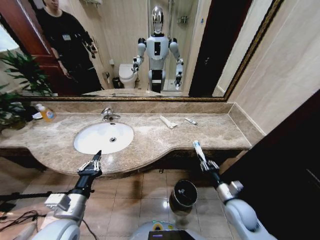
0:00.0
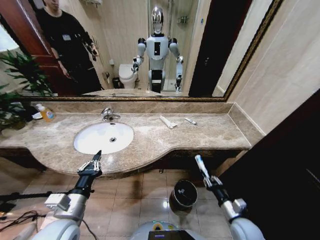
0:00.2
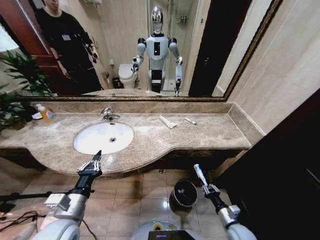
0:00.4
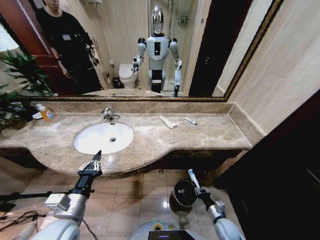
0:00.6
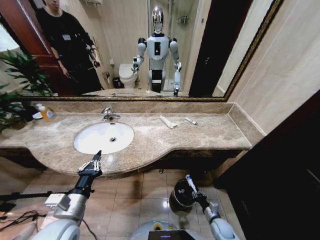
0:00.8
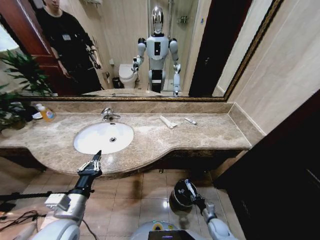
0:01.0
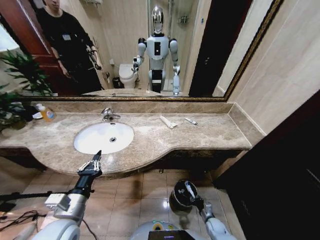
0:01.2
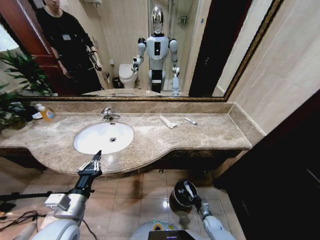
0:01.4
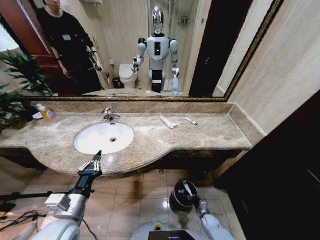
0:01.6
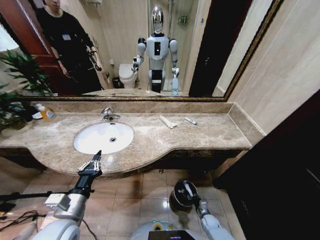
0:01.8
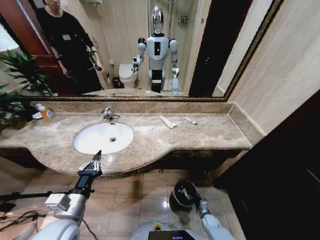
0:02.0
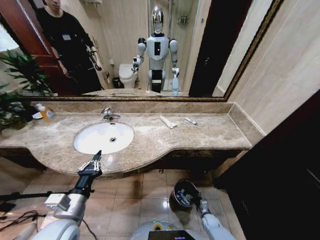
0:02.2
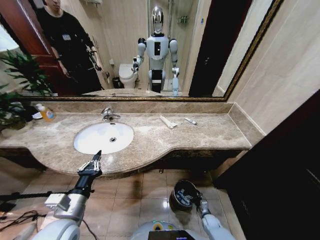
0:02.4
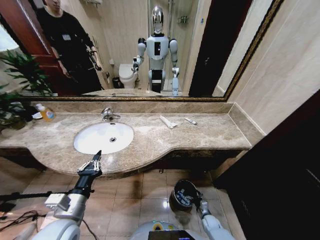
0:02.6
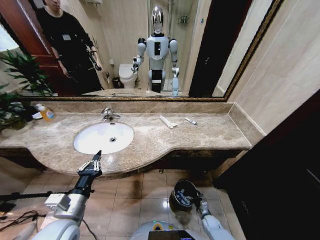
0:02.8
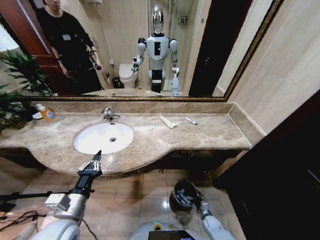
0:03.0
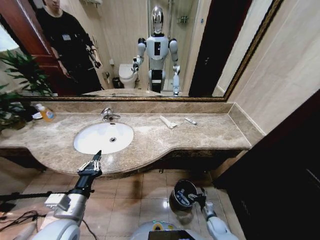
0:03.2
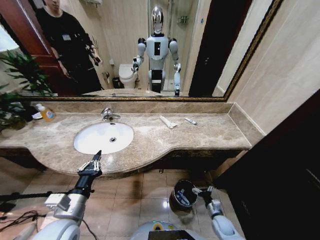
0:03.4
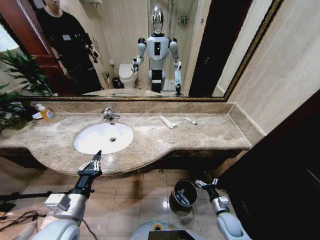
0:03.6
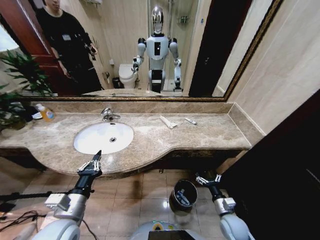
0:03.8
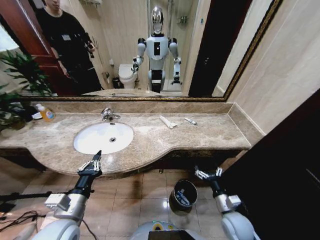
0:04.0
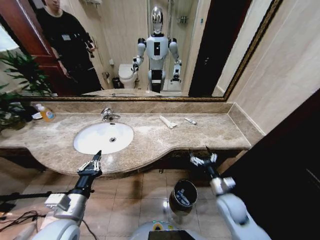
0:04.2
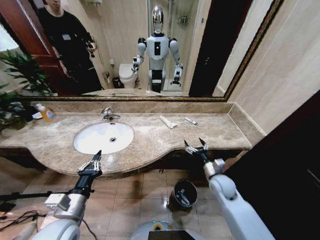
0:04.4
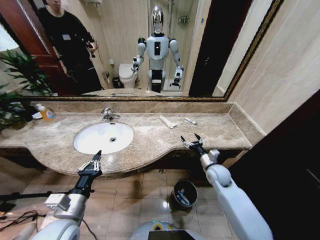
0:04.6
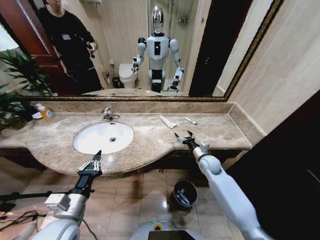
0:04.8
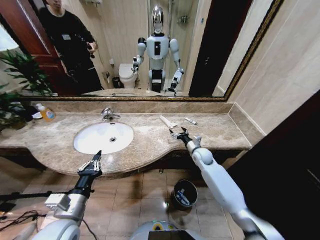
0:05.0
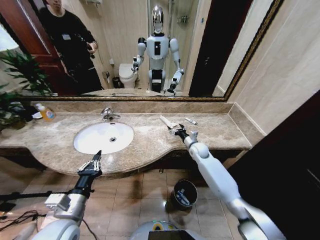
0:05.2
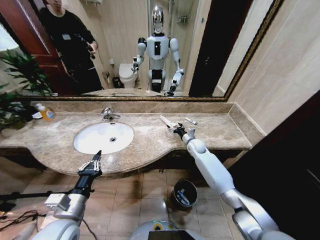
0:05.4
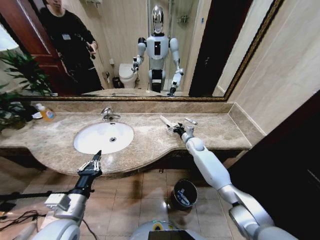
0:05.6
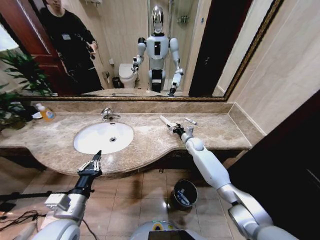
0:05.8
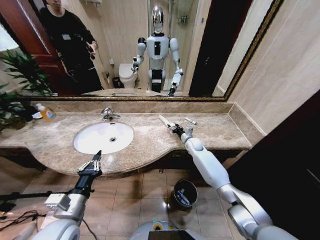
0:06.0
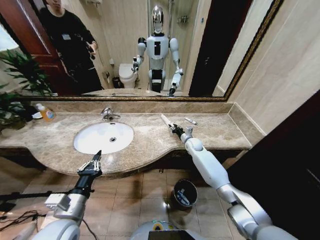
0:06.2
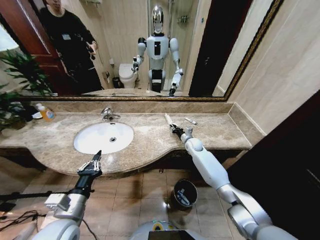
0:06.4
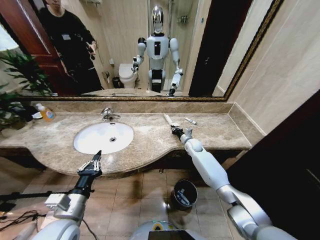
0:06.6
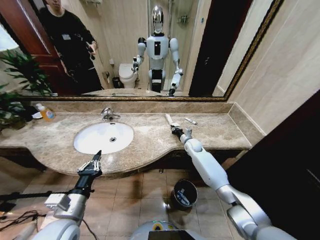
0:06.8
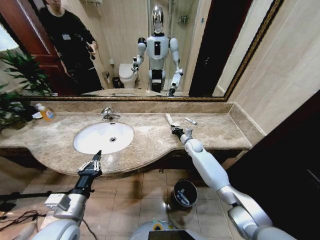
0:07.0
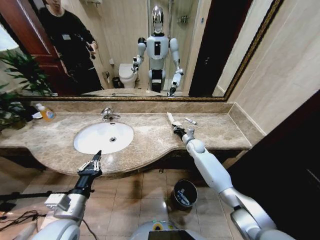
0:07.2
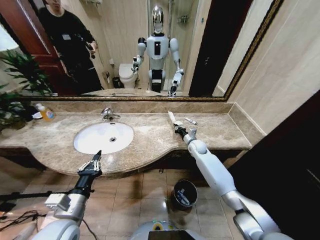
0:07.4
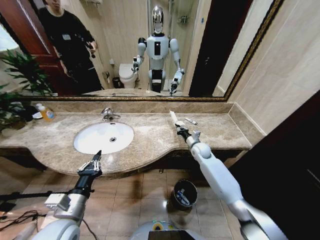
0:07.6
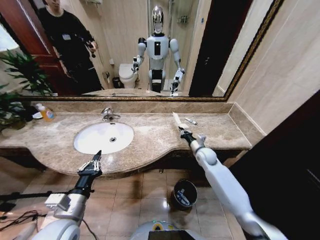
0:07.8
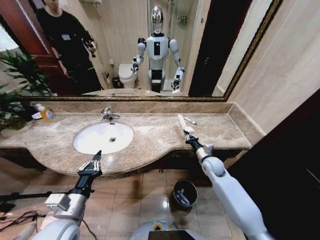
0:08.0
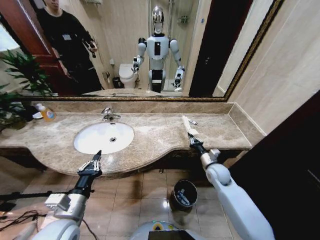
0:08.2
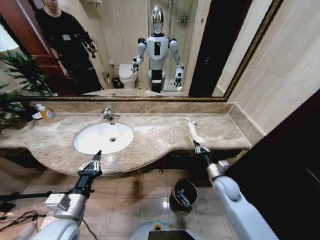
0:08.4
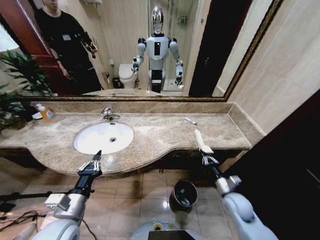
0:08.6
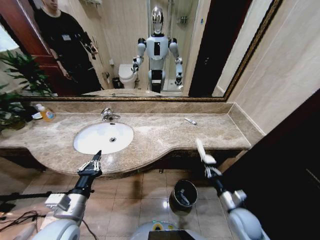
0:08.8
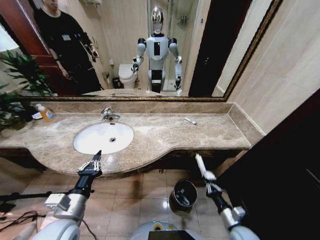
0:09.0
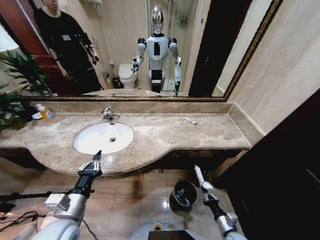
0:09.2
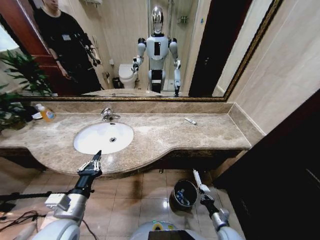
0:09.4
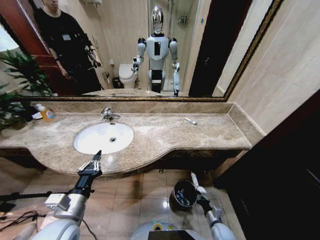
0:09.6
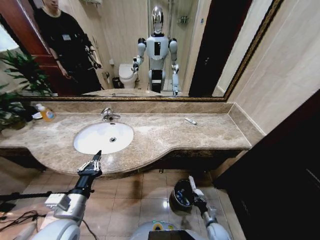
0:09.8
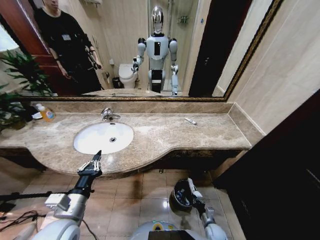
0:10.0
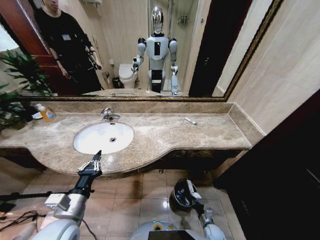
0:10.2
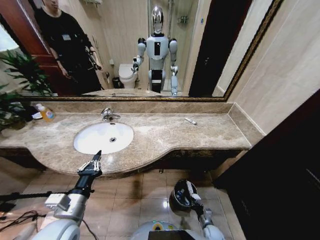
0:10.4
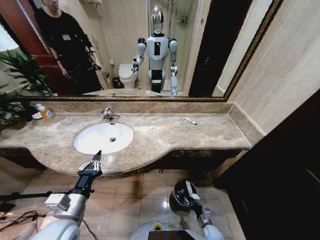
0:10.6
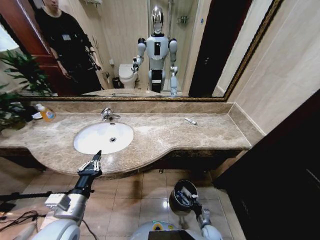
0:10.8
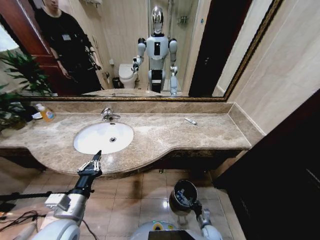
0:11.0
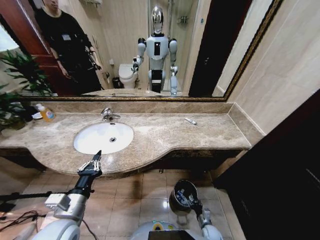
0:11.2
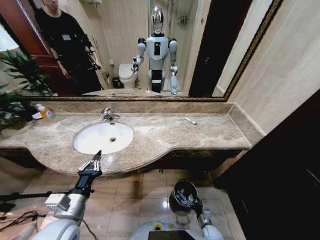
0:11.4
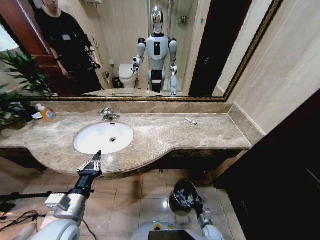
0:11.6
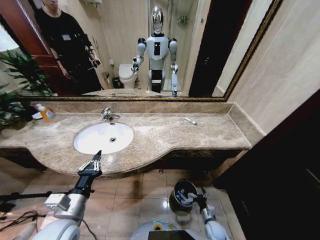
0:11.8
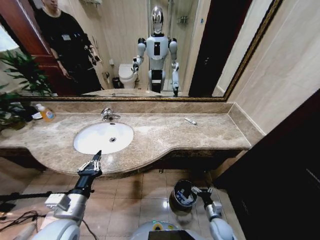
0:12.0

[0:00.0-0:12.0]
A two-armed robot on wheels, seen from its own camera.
Task of the whole recording: Pick up the trash from the sink and place it in the trash bin.
0:00.0 to 0:01.6: The right gripper heads downward, covering roughly 30 cm.
0:03.0 to 0:04.4: The right gripper shifts approximately 35 cm upward.
0:04.4 to 0:06.0: The right gripper is displaced forward by roughly 25 cm.
0:06.0 to 0:07.6: The right gripper travels backward by approximately 5 cm, and closes up.
0:07.6 to 0:09.0: The right gripper is displaced backward by about 35 cm.
0:09.0 to 0:10.4: The right gripper moves downward, approximately 20 cm.
0:10.4 to 0:12.0: The right gripper goes approximately 10 cm upward, and opens its fingers.

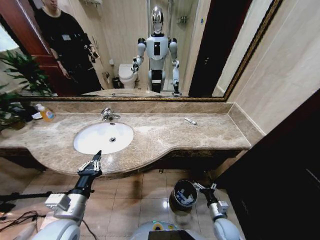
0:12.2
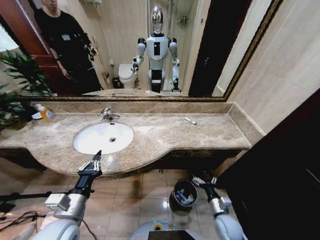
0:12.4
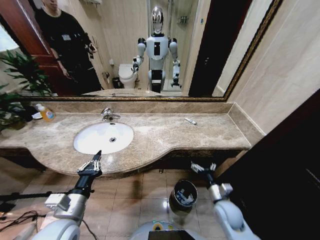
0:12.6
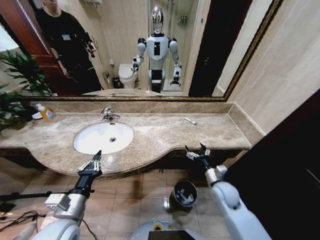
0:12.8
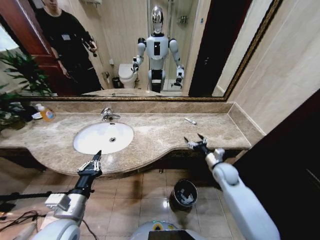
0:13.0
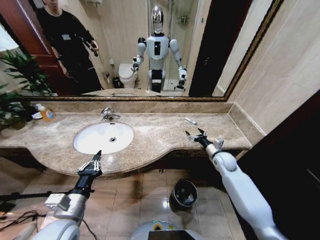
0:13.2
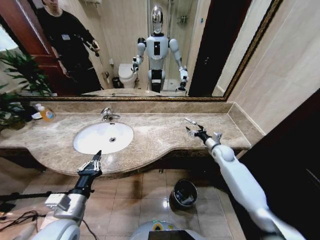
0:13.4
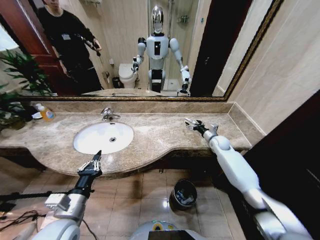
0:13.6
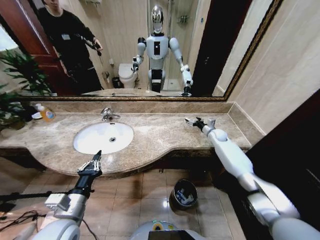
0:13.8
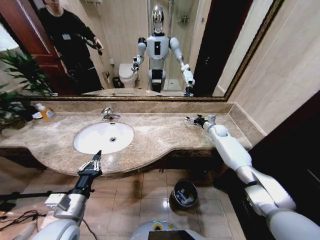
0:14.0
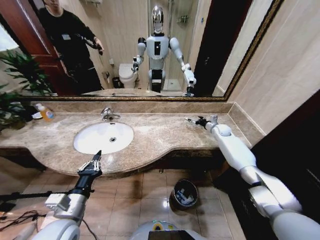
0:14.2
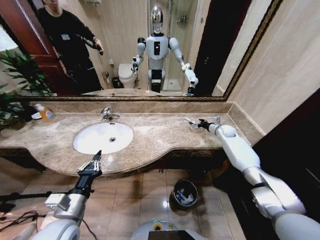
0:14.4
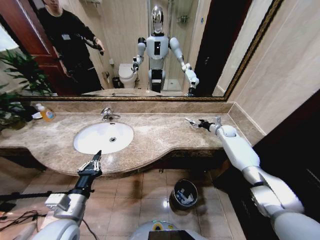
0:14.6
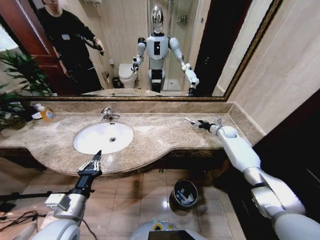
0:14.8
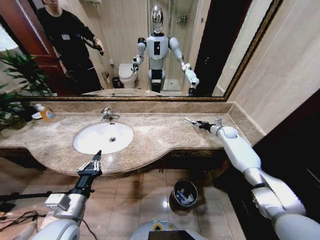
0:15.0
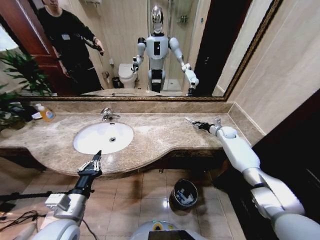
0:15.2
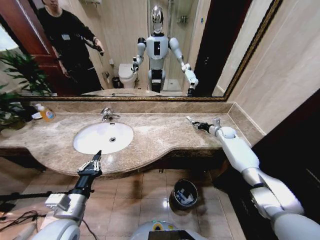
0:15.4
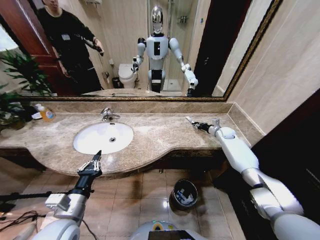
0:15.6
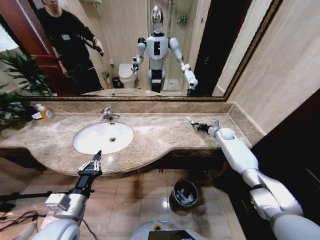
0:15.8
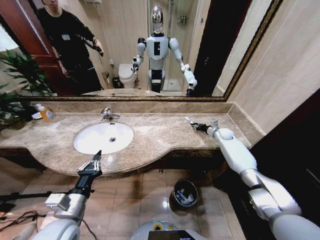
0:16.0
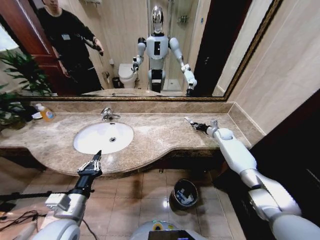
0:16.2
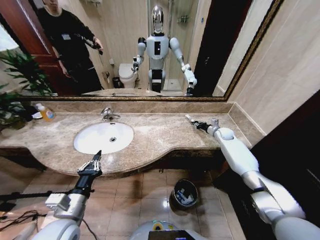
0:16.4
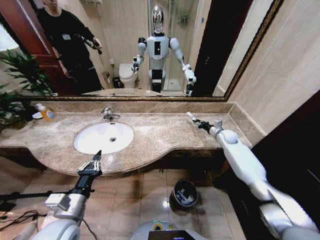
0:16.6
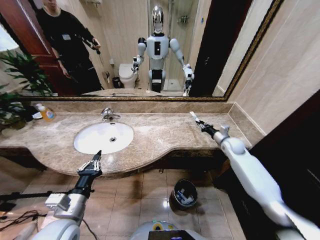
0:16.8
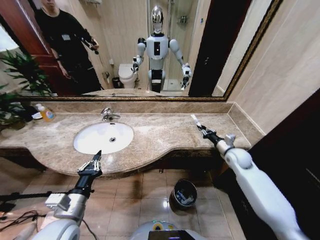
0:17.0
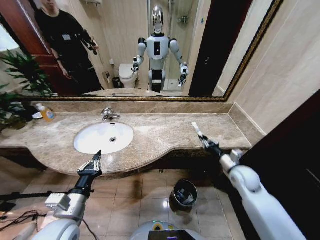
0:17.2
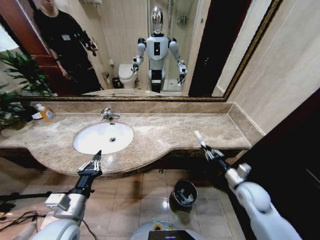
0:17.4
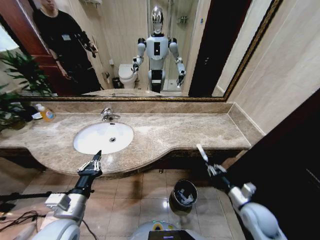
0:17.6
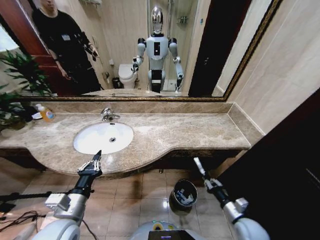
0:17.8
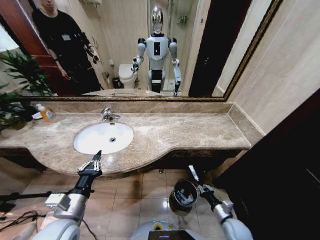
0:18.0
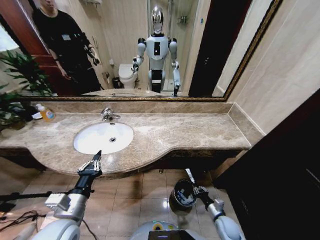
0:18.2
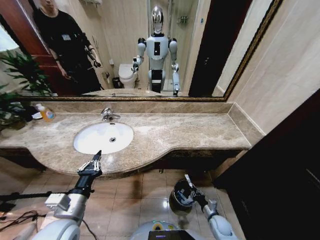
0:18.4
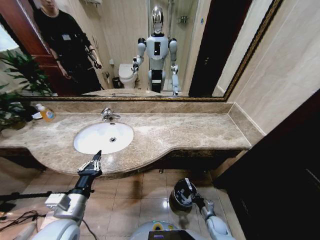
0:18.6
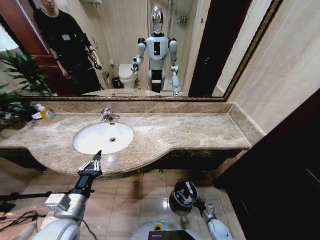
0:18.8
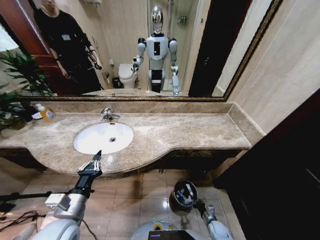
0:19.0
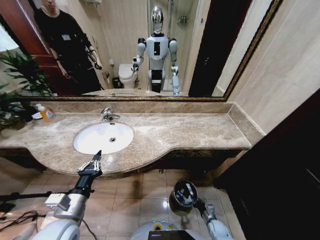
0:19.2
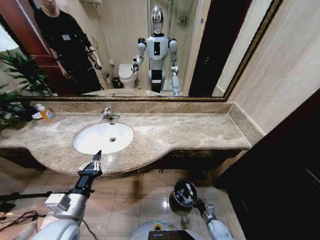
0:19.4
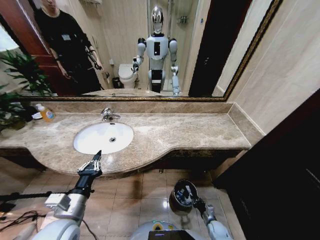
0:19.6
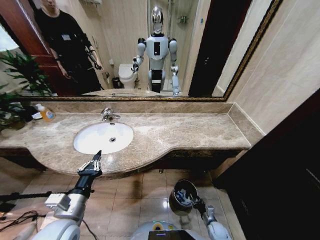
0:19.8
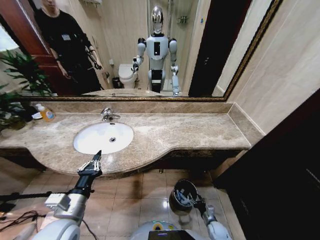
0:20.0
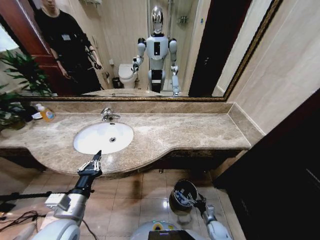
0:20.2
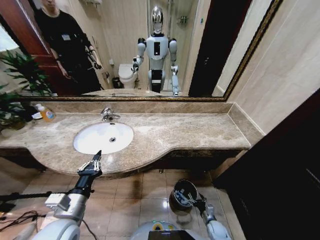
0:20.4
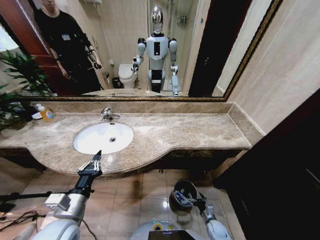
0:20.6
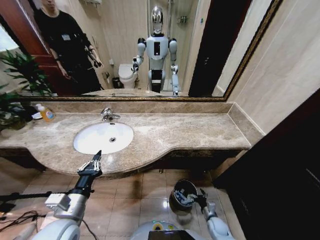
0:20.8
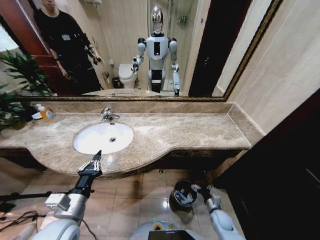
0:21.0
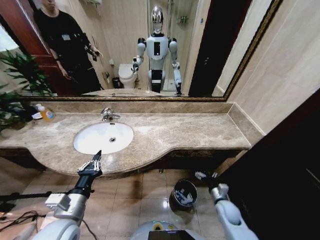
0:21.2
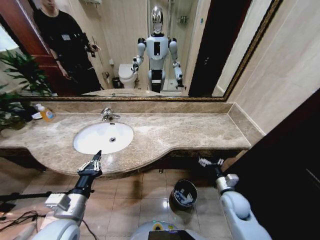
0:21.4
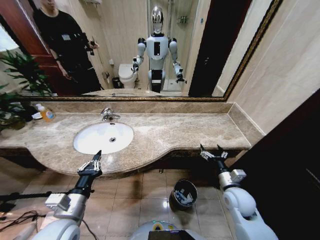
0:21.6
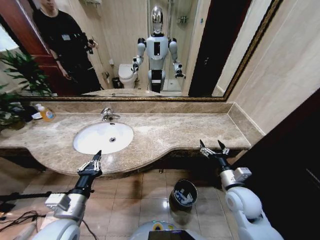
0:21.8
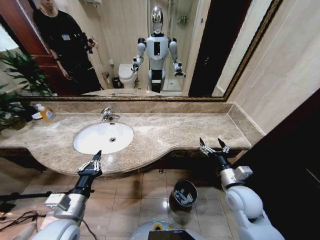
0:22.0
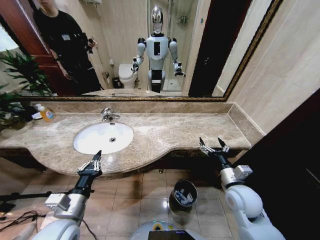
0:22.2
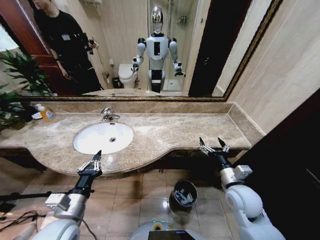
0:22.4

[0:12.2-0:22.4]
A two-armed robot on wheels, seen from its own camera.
Task of the whole recording: Pick up the trash from the sink and place it in the trash bin.
0:12.2 to 0:13.6: The right gripper travels forward and upward by approximately 40 cm.
0:13.6 to 0:15.2: The right gripper travels to the right and forward by some 10 cm, and closes.
0:15.2 to 0:16.6: The grippers stay close to where they were, moving slightly.
0:16.6 to 0:18.0: The right gripper travels backward and downward by about 40 cm.
0:18.0 to 0:19.4: The right gripper moves downward, some 15 cm.
0:19.4 to 0:21.0: The right gripper goes some 10 cm upward, and opens its fingers.
0:21.0 to 0:22.4: The right gripper heads upward, covering some 30 cm.
